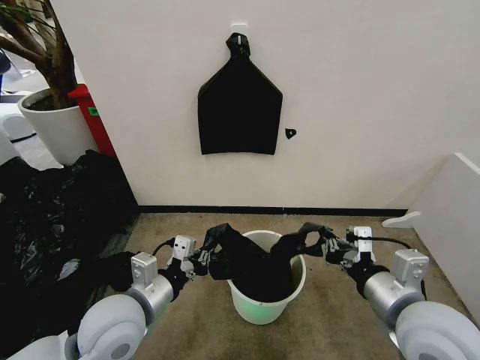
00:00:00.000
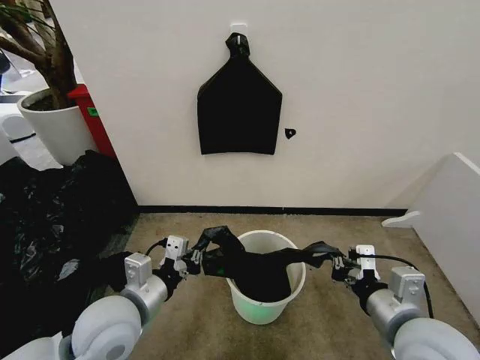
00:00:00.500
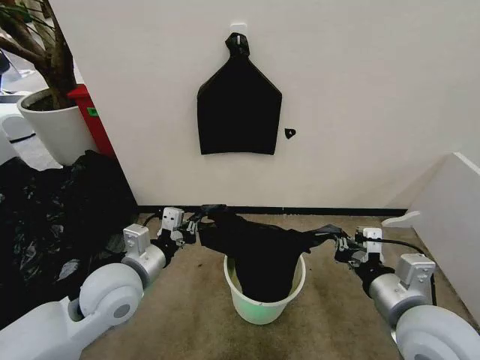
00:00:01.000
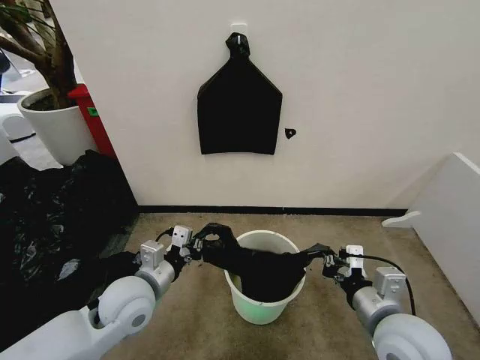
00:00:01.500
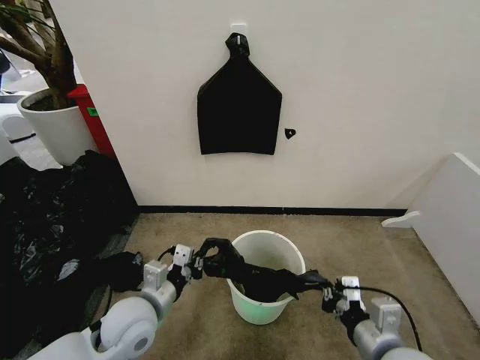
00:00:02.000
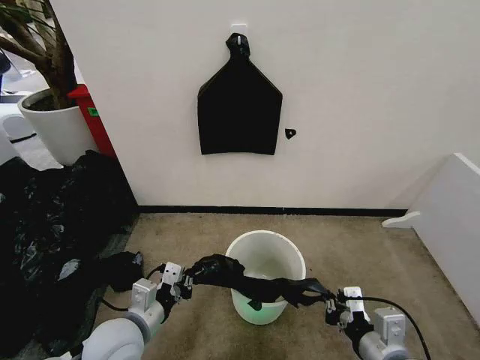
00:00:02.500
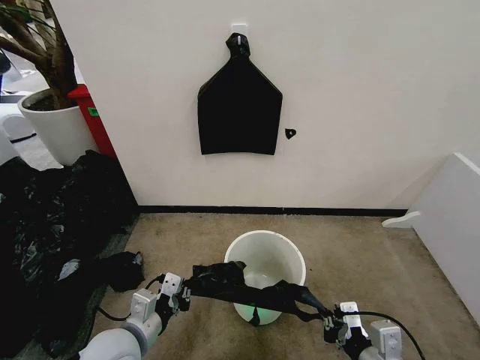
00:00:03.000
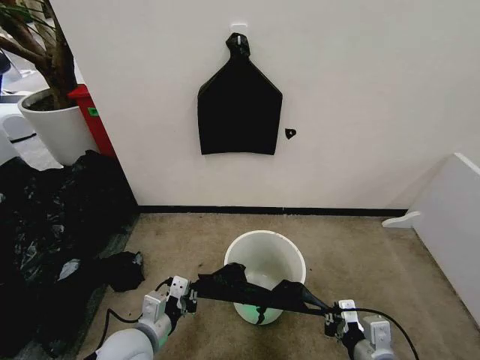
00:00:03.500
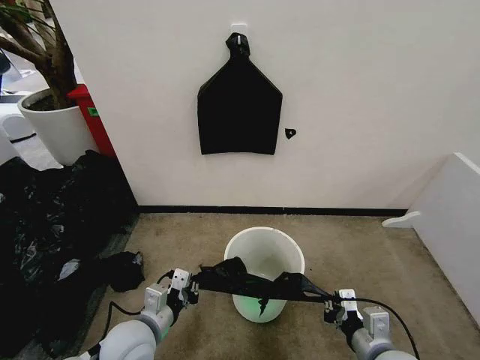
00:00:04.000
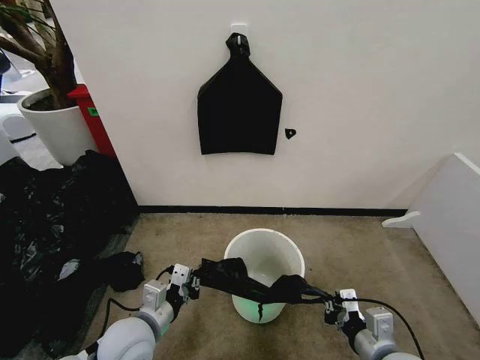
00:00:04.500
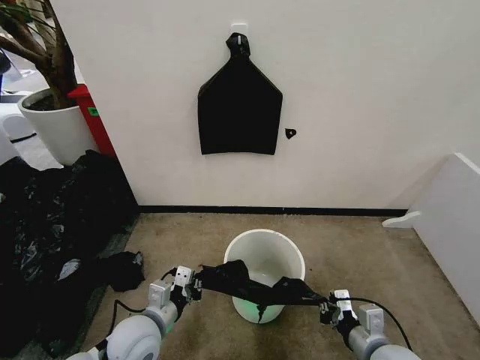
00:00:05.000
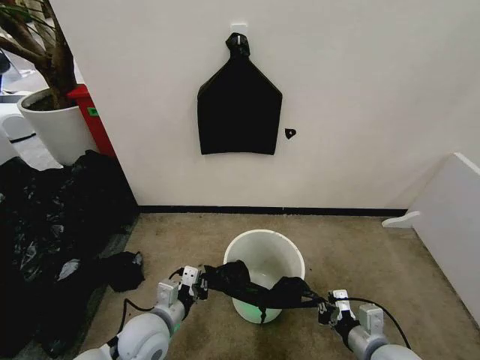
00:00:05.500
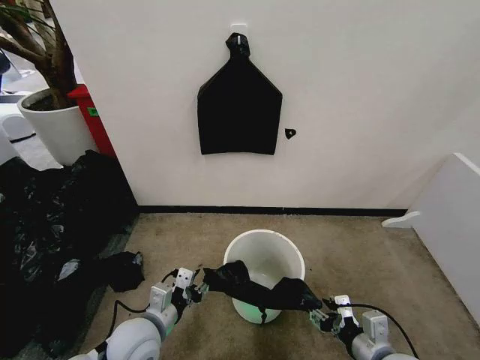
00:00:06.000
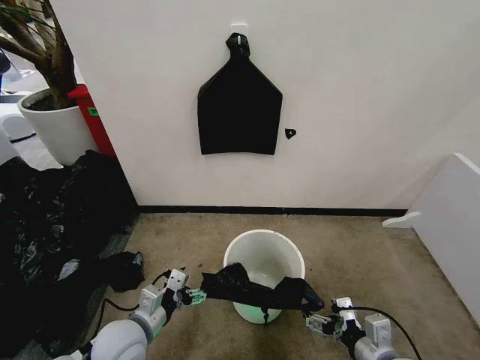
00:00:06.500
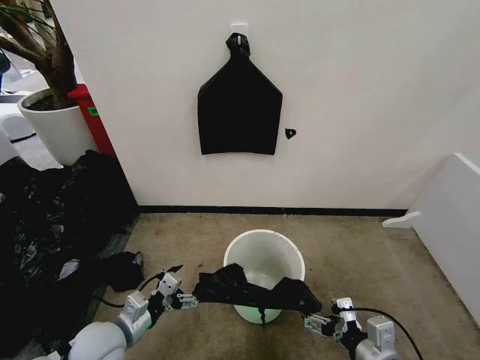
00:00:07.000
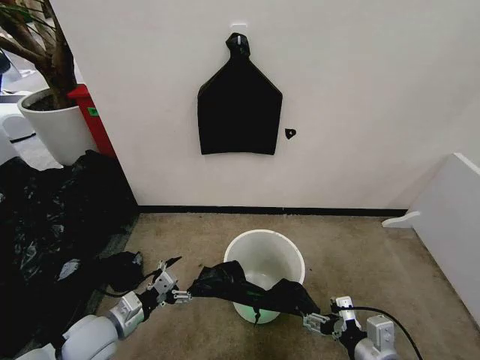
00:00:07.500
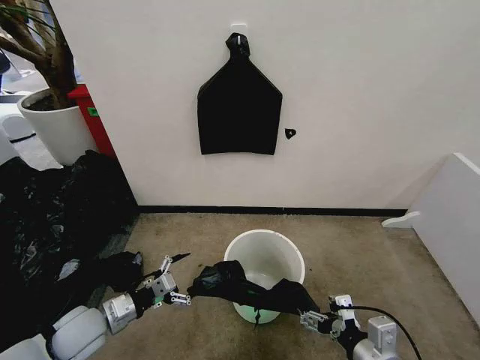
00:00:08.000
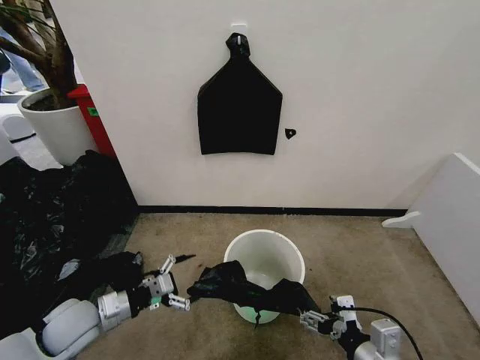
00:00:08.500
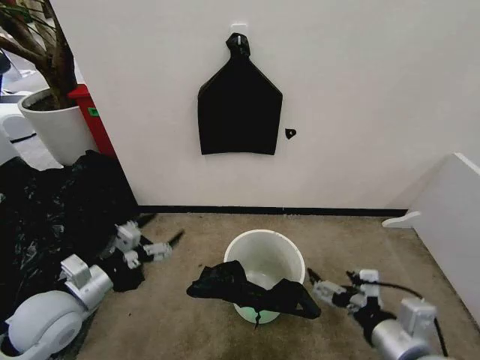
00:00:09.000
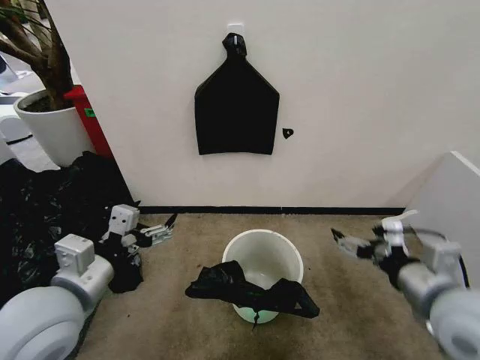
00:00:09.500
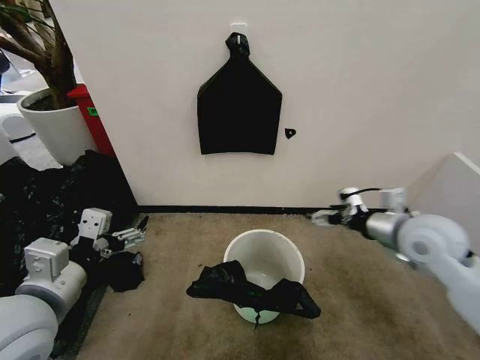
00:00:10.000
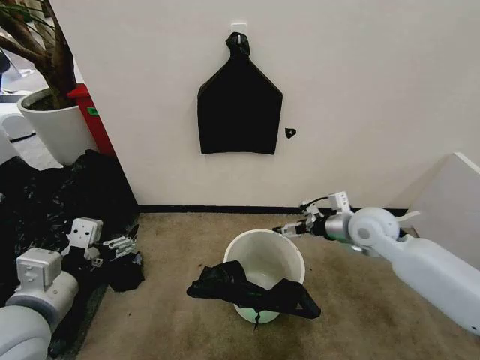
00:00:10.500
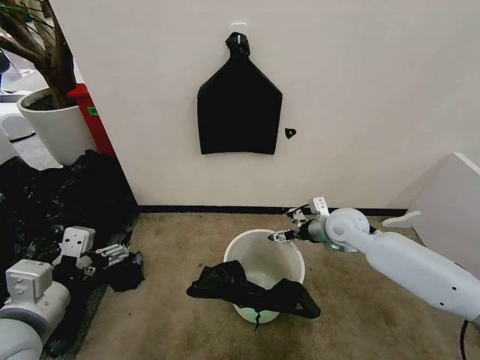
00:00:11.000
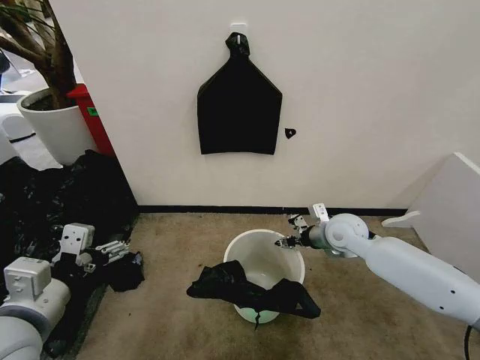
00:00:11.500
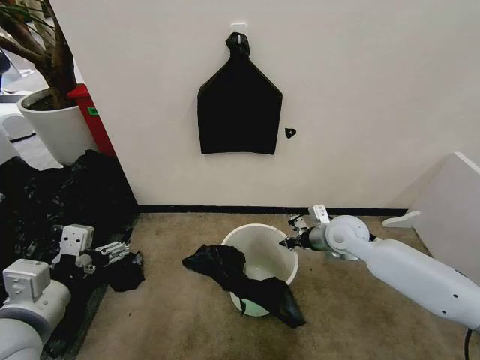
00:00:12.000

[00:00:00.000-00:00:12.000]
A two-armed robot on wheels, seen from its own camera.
Task of the whole recording: Place the garbage bag over the trash bin.
00:00:00.000 to 00:00:02.000: Both grippers move downward, approximately 10 cm.
00:00:02.000 to 00:00:04.000: The left gripper changes place by about 5 cm, while the right gripper goes some 5 cm downward.
00:00:04.000 to 00:00:06.000: The right gripper opens up; the left gripper opens.
00:00:06.000 to 00:00:08.000: The right gripper moves approximately 5 cm, and opens up; the left gripper travels to the left by approximately 10 cm, and opens its fingers.
00:00:08.000 to 00:00:10.000: The right gripper moves forward and upward, approximately 25 cm, while the left gripper is displaced upward by some 20 cm.
00:00:10.000 to 00:00:12.000: The right gripper travels downward, forward and to the left by some 15 cm, and closes its fingers.

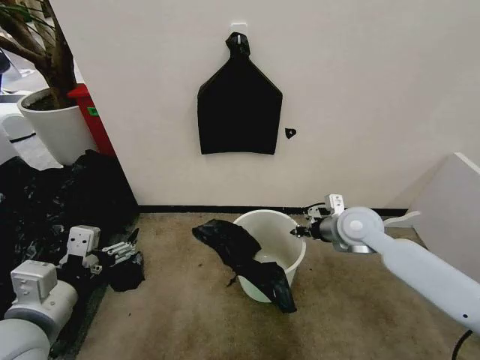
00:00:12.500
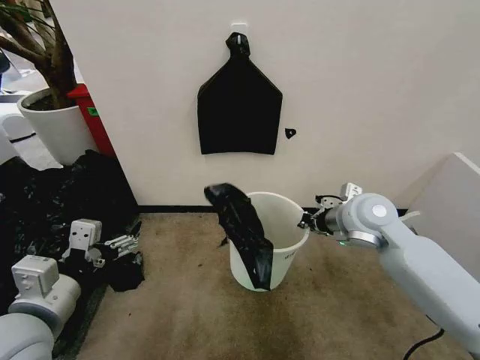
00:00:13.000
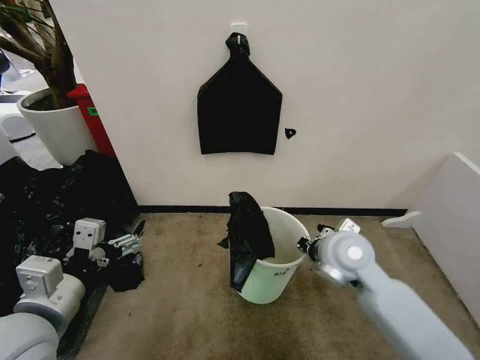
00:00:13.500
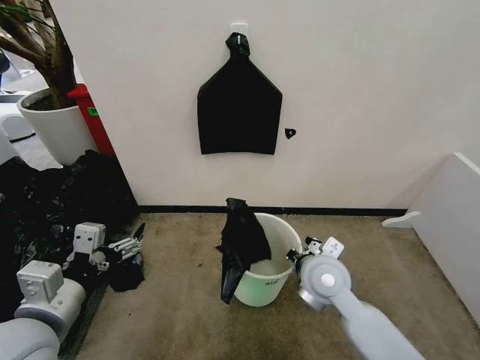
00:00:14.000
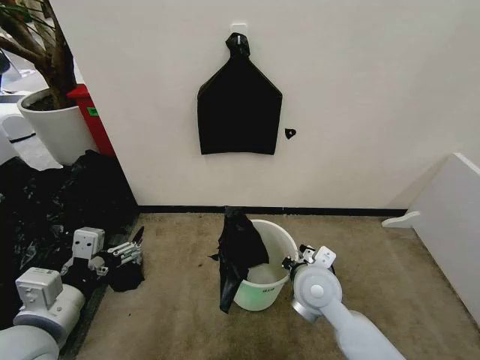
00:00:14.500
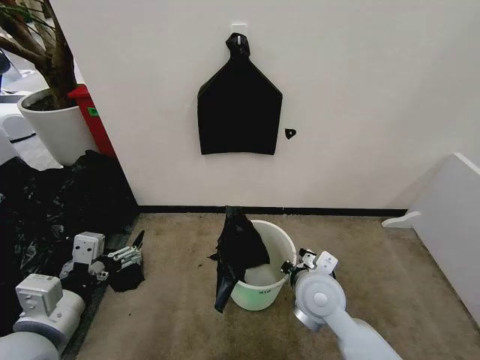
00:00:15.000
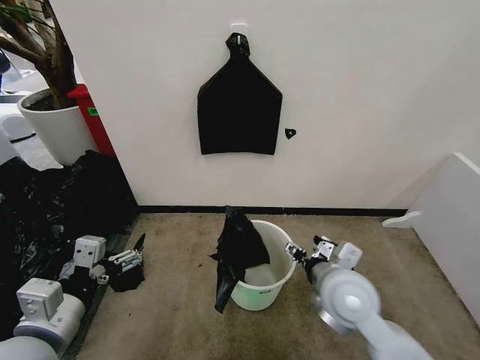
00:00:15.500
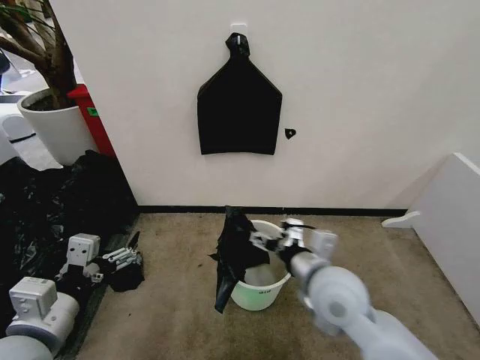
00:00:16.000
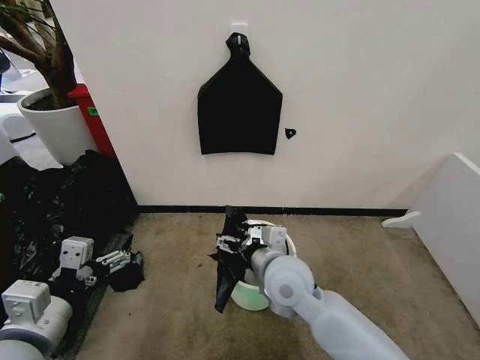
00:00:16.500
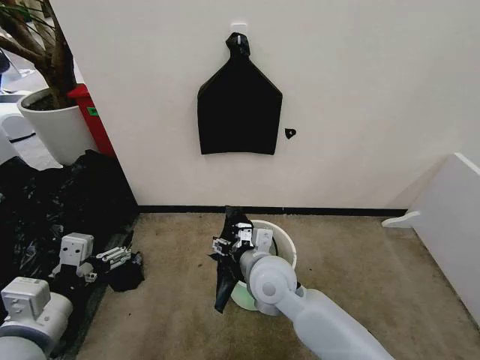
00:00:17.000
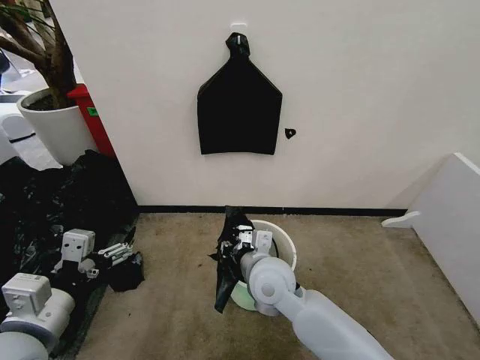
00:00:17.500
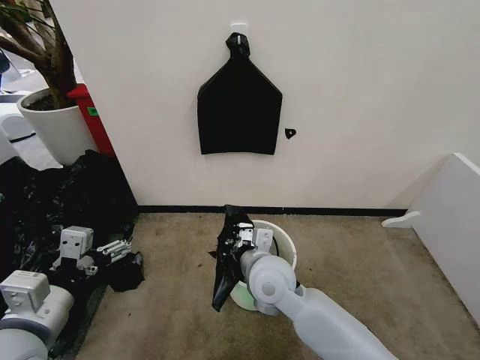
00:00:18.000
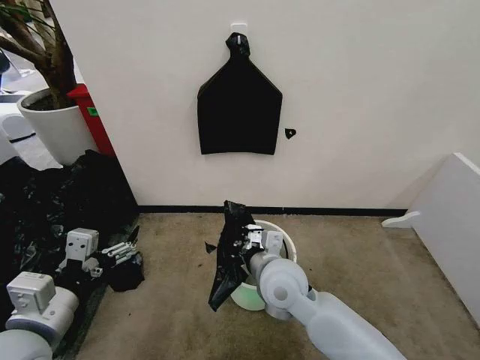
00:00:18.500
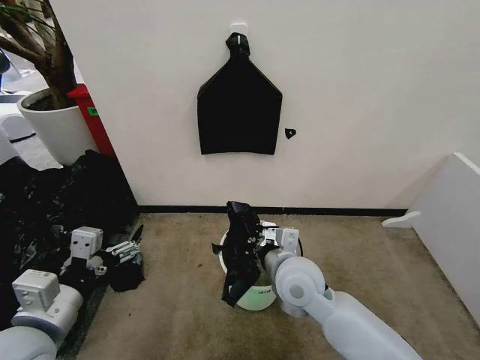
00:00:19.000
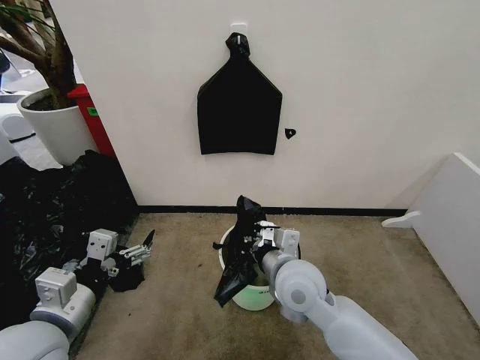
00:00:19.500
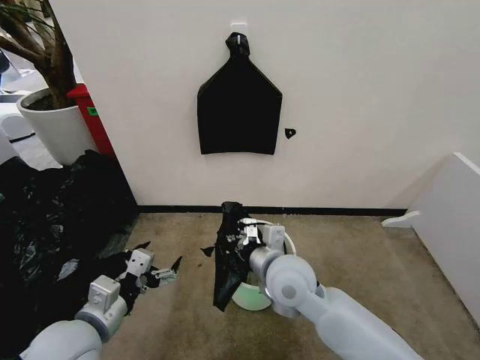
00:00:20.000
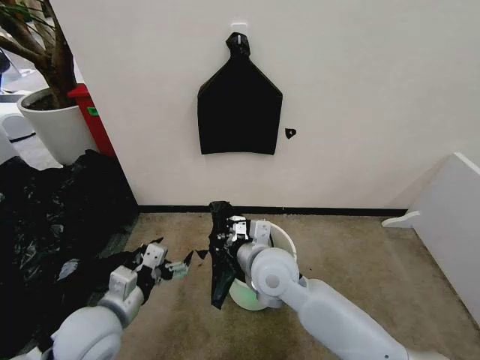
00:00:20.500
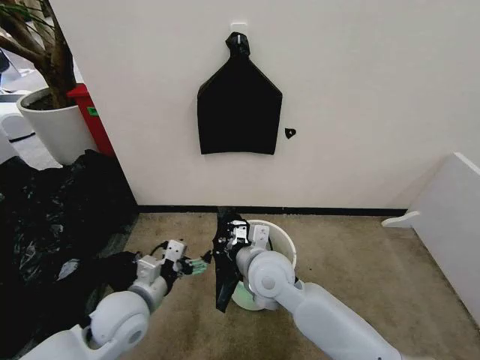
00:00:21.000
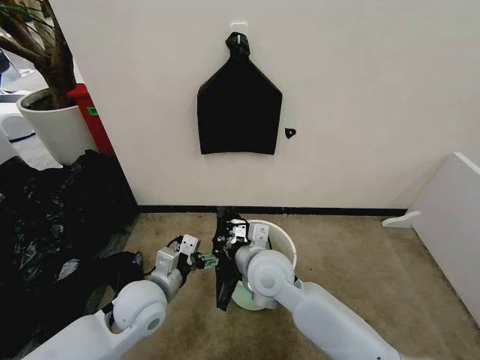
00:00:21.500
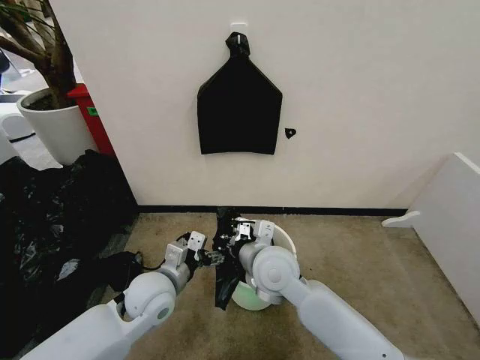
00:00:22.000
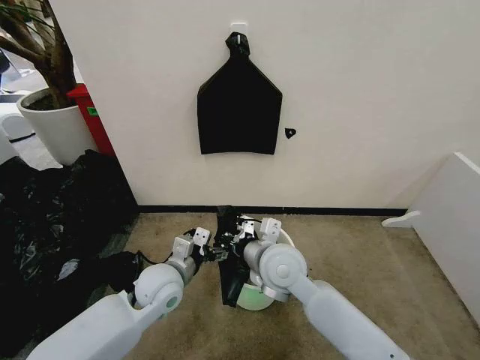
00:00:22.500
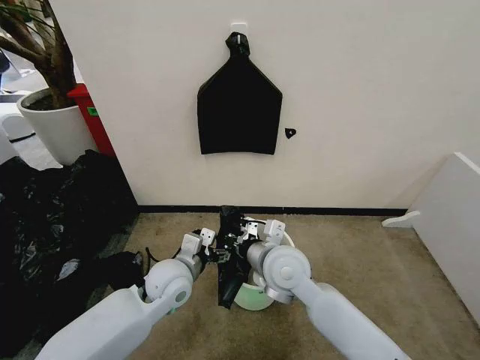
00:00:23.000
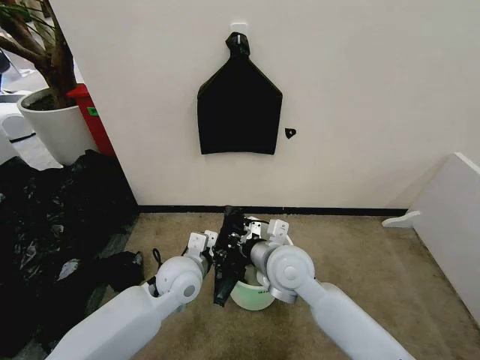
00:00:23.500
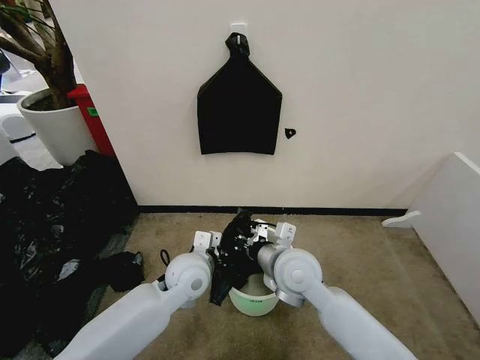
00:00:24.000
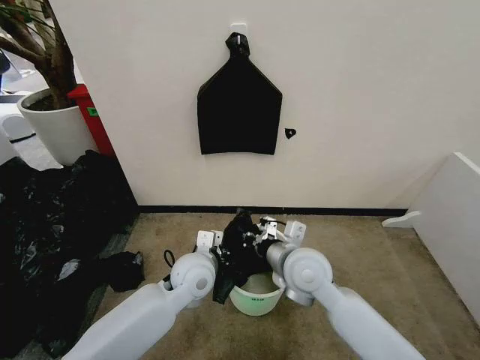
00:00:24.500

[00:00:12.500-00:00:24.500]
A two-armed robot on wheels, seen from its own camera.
Task of the whole recording: Place the garbage bag over the trash bin.
00:00:12.500 to 00:00:14.500: The right gripper shifts about 20 cm backward, to the left and downward.
00:00:14.500 to 00:00:16.500: The right gripper goes about 5 cm to the left, and opens.
00:00:16.500 to 00:00:18.500: The right gripper closes.
00:00:18.500 to 00:00:20.500: The left gripper goes some 10 cm downward and forward.
00:00:20.500 to 00:00:22.500: The left gripper heads forward and to the right, covering some 15 cm.
00:00:22.500 to 00:00:24.500: The left gripper heads to the right, covering about 5 cm, and closes its fingers.

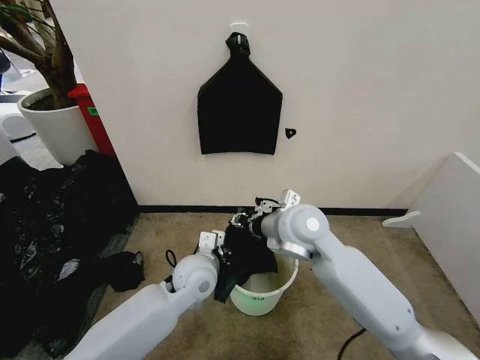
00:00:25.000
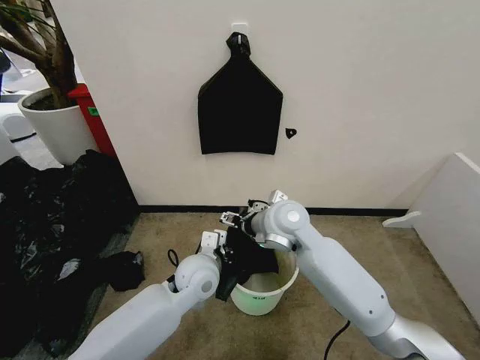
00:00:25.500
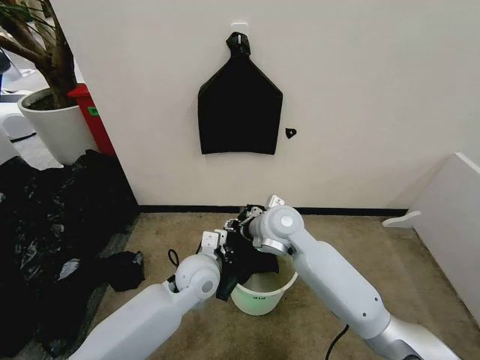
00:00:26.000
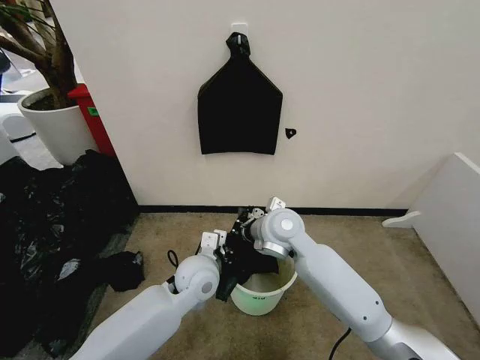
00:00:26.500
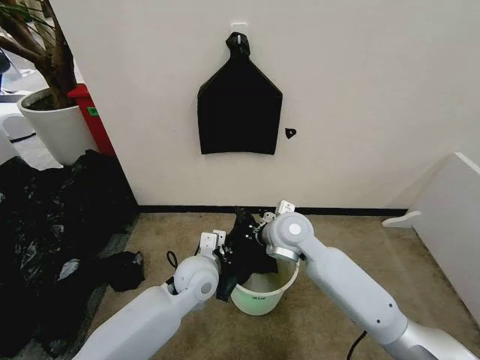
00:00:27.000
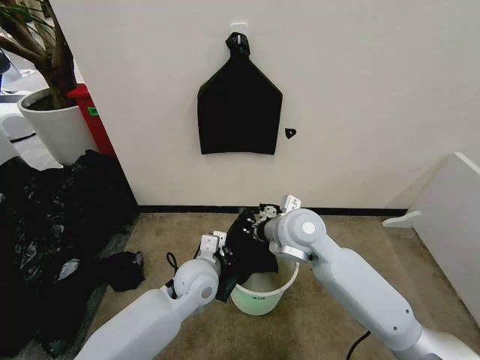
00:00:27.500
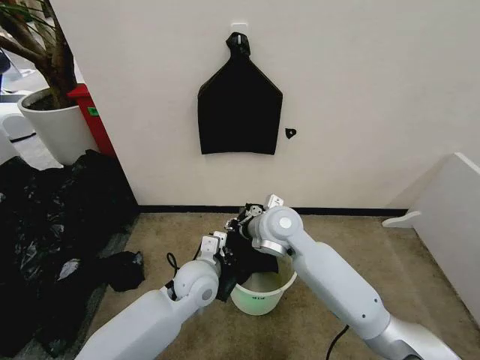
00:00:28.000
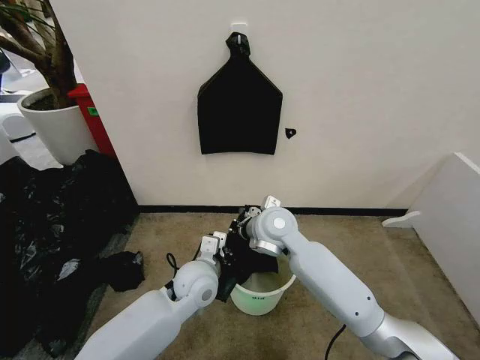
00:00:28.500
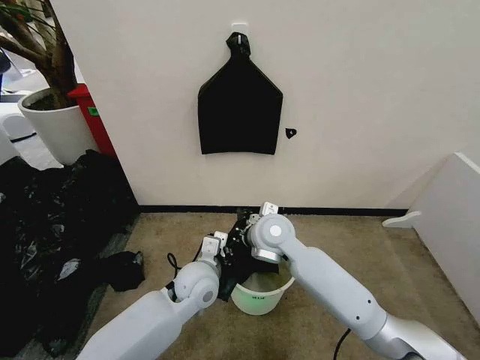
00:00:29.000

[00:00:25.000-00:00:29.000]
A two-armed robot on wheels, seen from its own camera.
Task of the whole recording: Place the garbage bag over the trash bin.
00:00:25.000 to 00:00:27.000: The right gripper shifts some 5 cm downward, and closes up.
00:00:27.000 to 00:00:29.000: The right gripper opens, then closes again.
